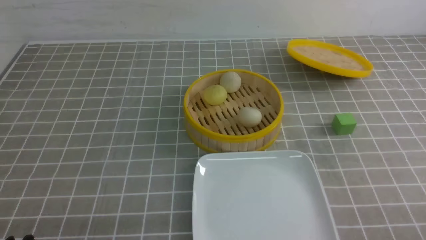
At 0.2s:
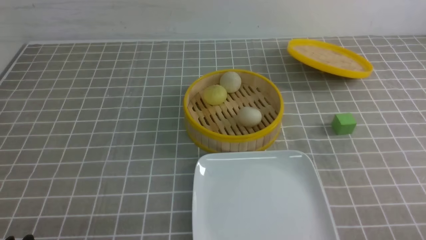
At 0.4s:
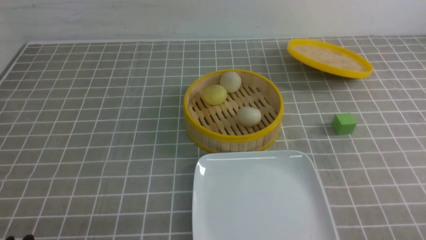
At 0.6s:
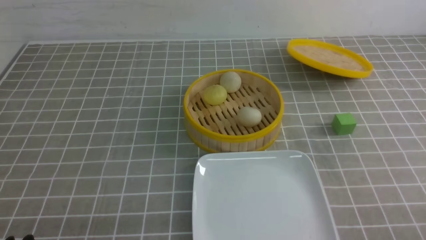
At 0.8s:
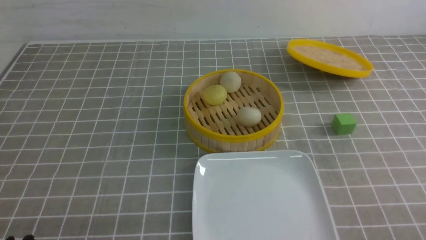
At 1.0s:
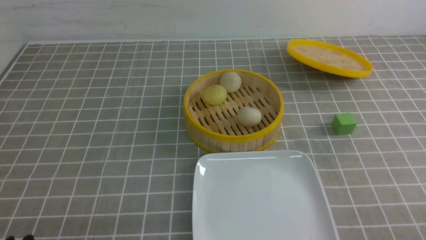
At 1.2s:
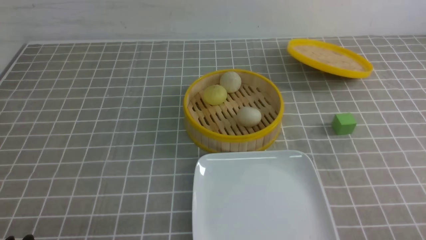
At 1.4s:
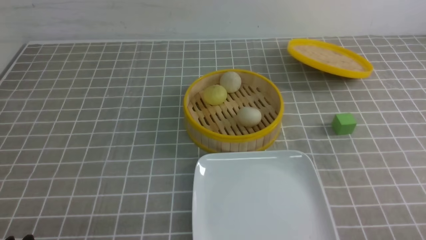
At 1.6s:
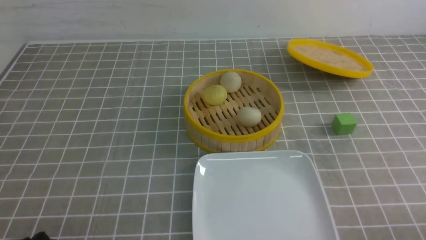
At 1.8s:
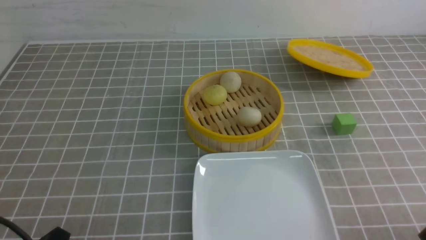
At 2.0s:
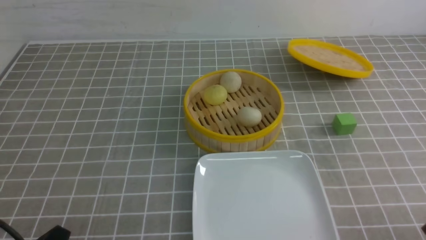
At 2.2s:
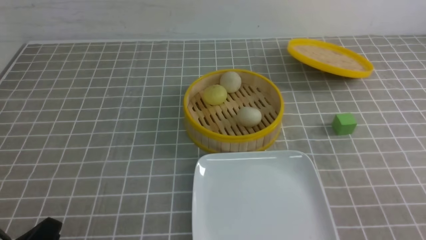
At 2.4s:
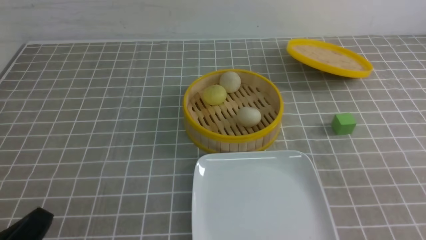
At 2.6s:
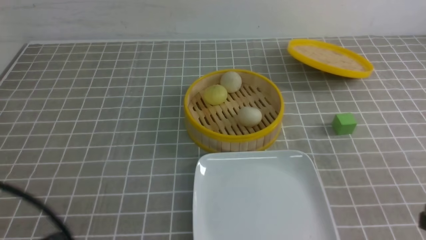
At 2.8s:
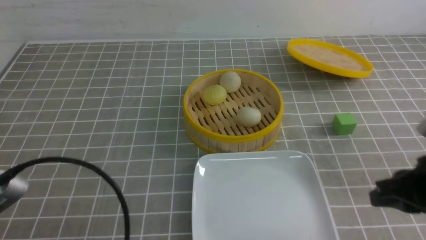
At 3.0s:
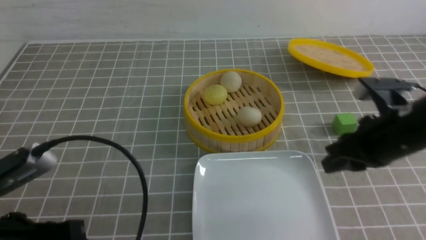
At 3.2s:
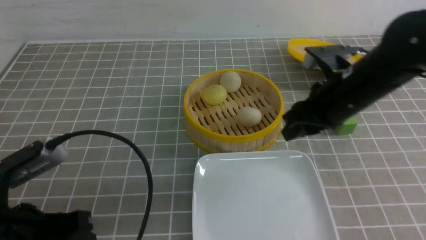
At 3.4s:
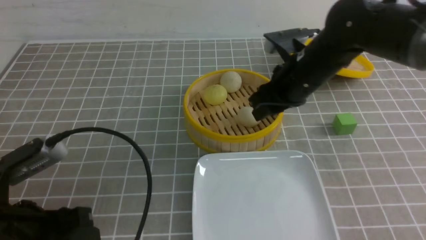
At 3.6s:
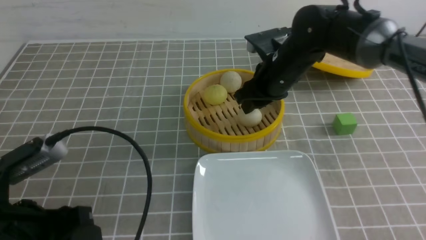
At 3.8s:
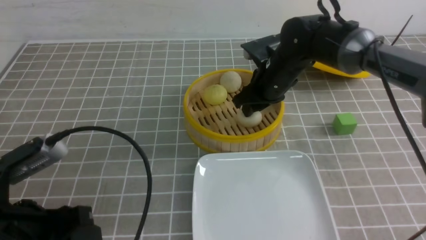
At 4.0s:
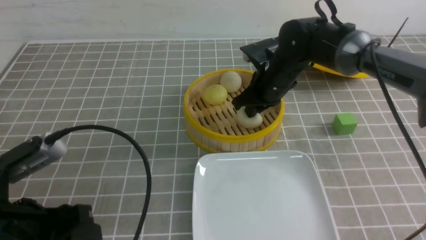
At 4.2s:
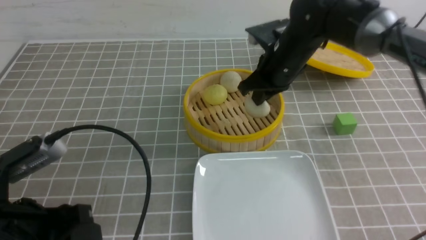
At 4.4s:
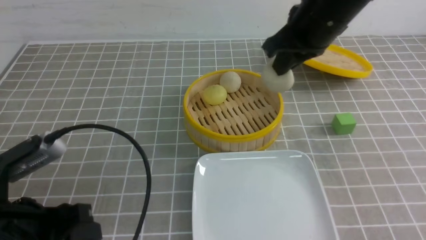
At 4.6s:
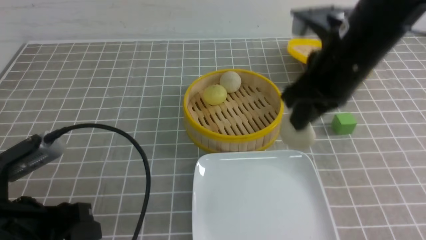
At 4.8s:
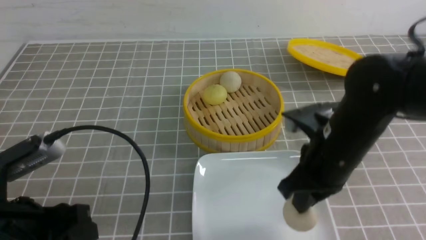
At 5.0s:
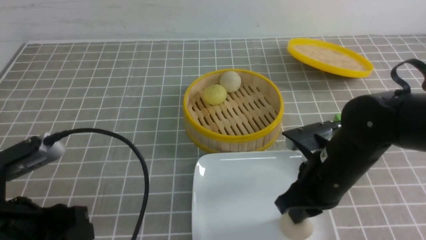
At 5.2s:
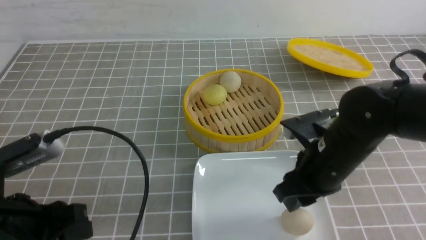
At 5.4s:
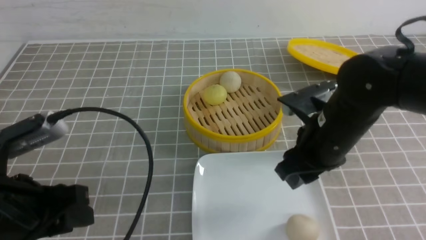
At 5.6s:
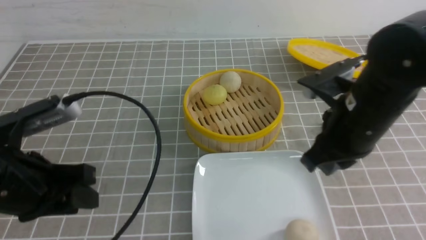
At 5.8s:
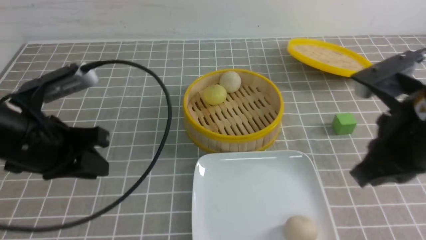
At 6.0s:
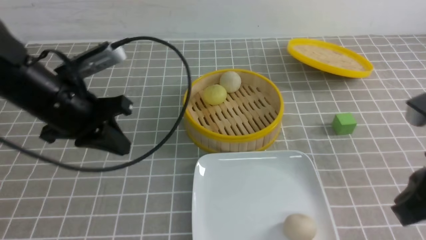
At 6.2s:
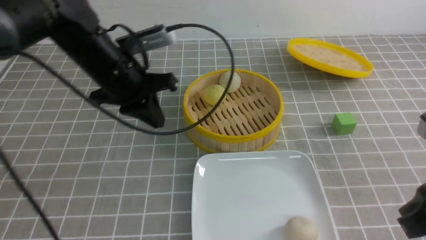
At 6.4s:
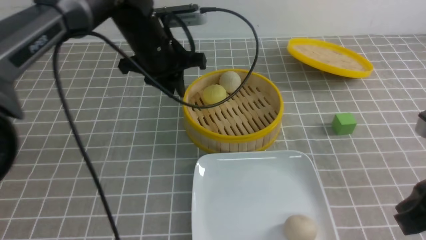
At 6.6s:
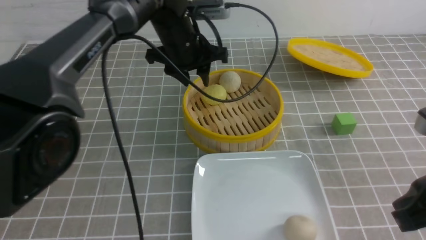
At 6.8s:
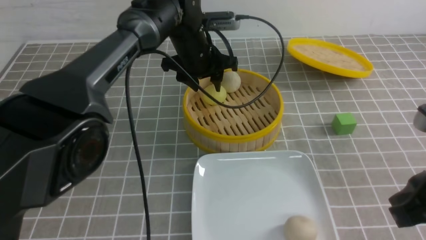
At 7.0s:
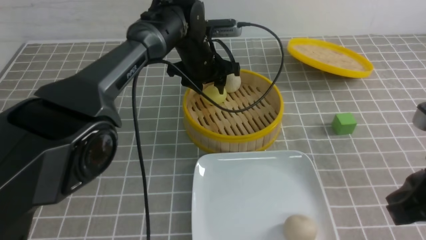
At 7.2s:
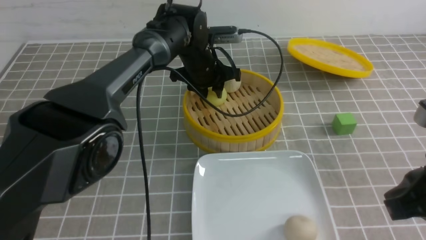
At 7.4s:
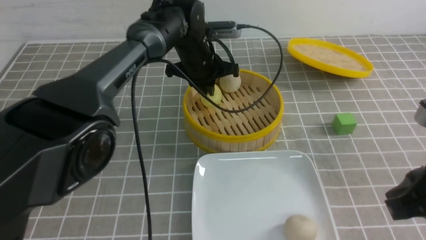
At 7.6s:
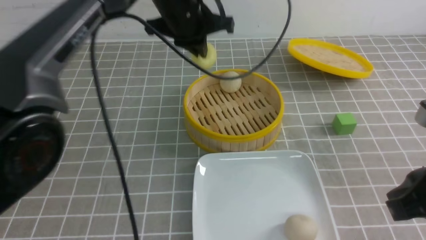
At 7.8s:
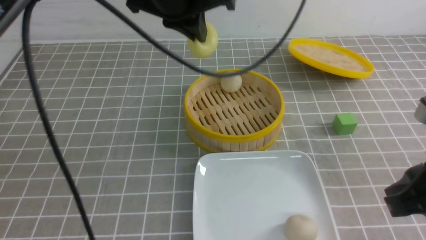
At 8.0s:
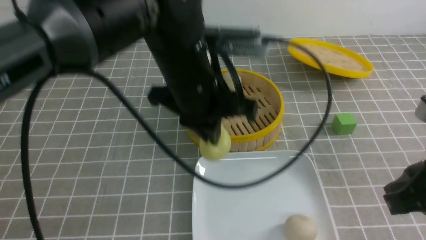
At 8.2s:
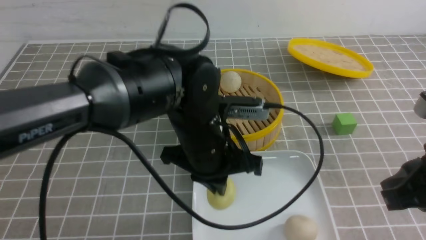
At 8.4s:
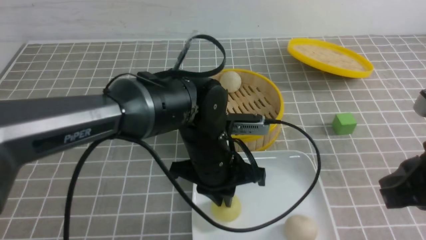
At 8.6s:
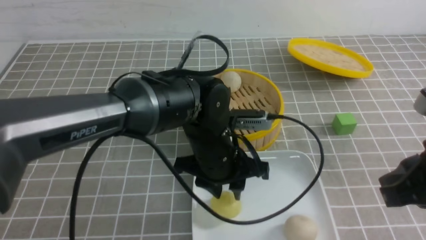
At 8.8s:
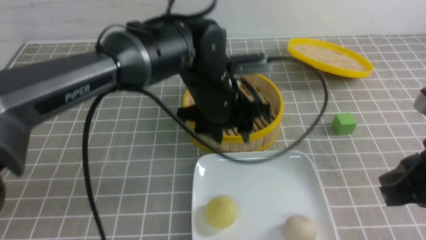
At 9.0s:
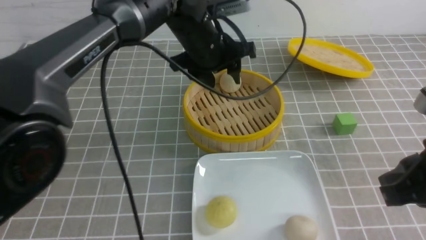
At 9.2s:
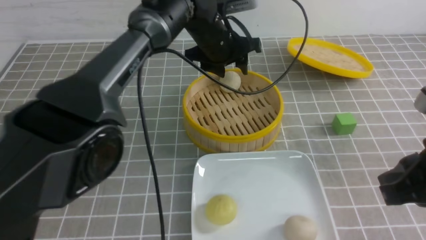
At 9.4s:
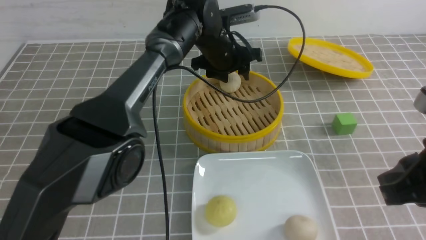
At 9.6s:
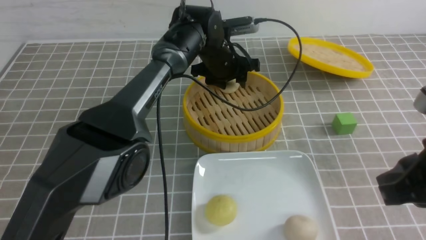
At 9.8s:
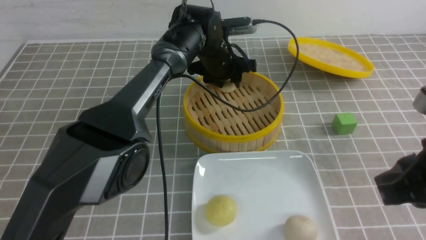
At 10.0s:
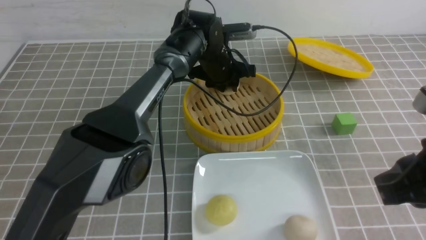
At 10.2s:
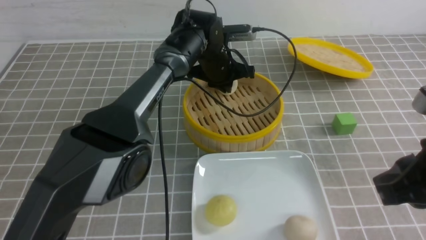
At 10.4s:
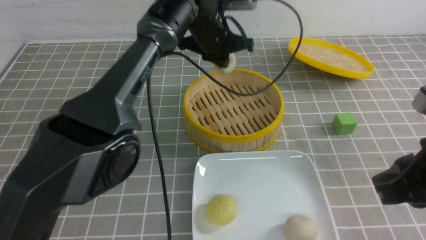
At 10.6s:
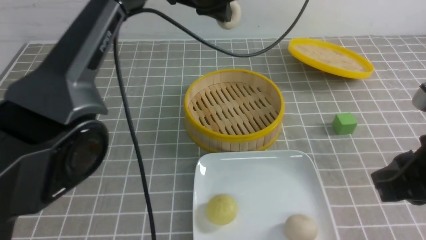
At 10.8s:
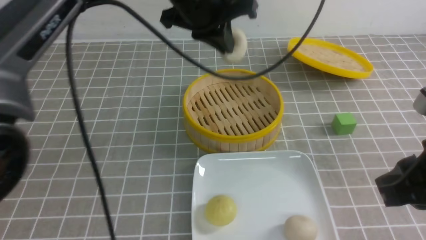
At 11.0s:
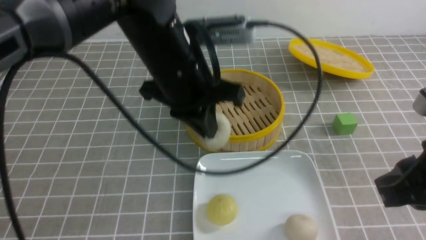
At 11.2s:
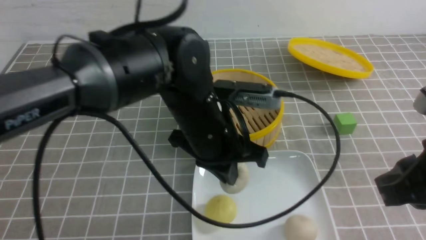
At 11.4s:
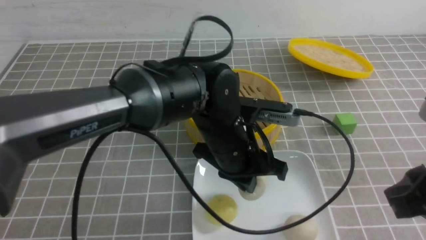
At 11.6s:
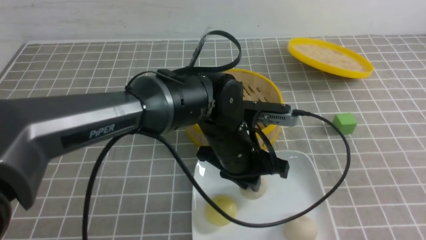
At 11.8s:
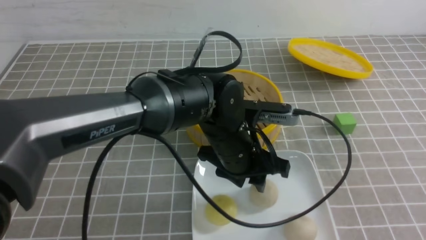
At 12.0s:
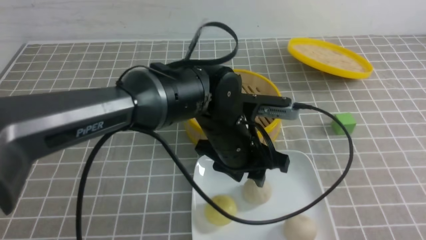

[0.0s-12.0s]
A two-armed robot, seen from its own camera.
Step, 0.0s to 4.0s: use the right arm to grab the steamed stuffed bun that is closest to it.
Step, 4.2s to 5.0s: use the right arm to put the steamed stuffed bun into the plate.
Step, 5.4s to 7.4s: use the left arm to grab the steamed stuffed bun that is closest to it.
Step, 7.6s to 8.6s: use the left arm to put the steamed stuffed bun into the plate.
Step, 8.8s to 10.2s: use the left arm to grab the steamed stuffed bun that is closest to it.
Step, 10.4s to 11.6s: use the left arm to put the steamed stuffed bun into the plate.
1.6s to 3.0s: The left gripper goes about 10 cm upward and forward, and closes, while the right gripper moves forward, upward and to the left, roughly 25 cm, and closes, then reopens.
3.0s to 4.4s: The left gripper opens up, while the right gripper moves forward, to the left and upward, approximately 15 cm, and closes.
4.4s to 6.0s: The right gripper heads backward and to the right, covering roughly 20 cm, and opens, then closes again; the left gripper goes some 15 cm forward, and closes up.
6.0s to 7.6s: The left gripper moves to the right and forward, some 20 cm, and opens and closes again.
7.6s to 9.0s: The left gripper travels downward by roughly 5 cm, and opens.
9.0s to 10.4s: The left gripper shifts some 5 cm forward, goes downward and returns, about 10 cm each way, and closes its fingers.
10.4s to 12.0s: The right gripper heads backward and to the right, covering some 20 cm. The left gripper heads backward, covering approximately 20 cm, and opens up.

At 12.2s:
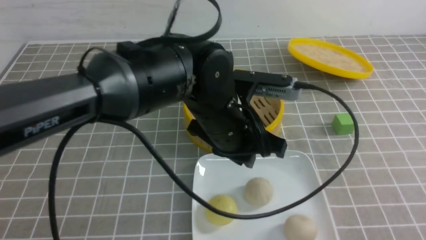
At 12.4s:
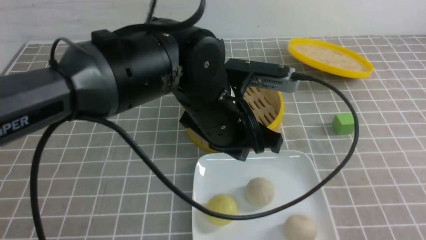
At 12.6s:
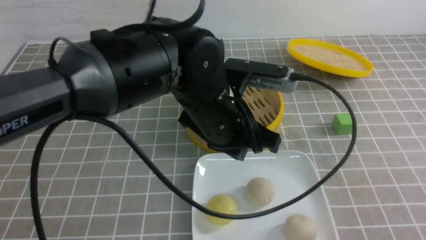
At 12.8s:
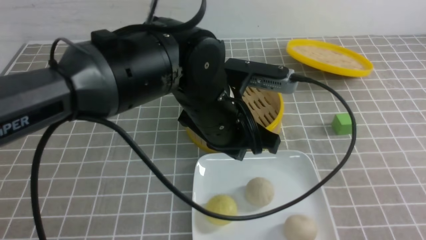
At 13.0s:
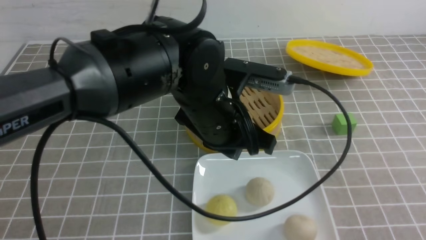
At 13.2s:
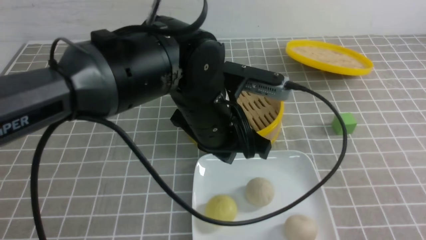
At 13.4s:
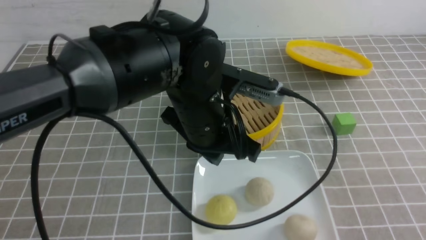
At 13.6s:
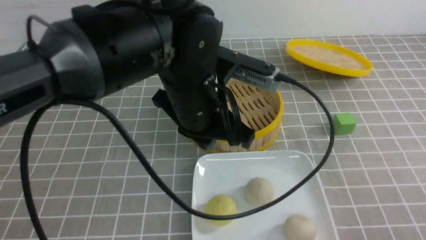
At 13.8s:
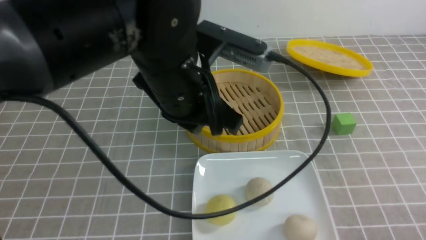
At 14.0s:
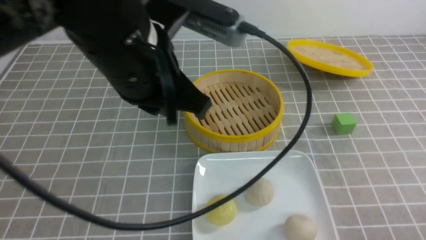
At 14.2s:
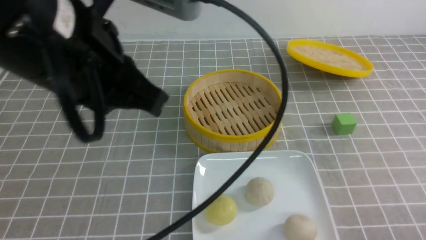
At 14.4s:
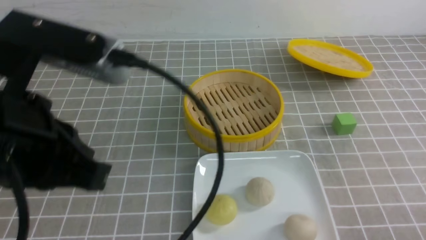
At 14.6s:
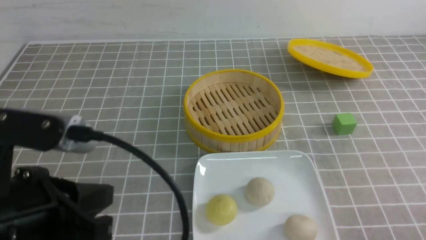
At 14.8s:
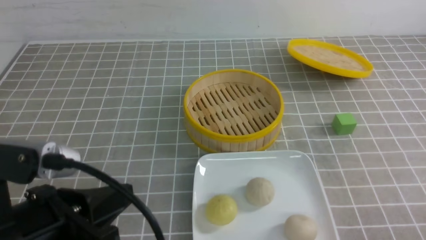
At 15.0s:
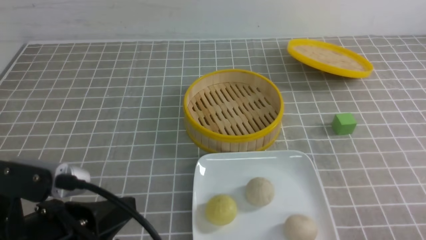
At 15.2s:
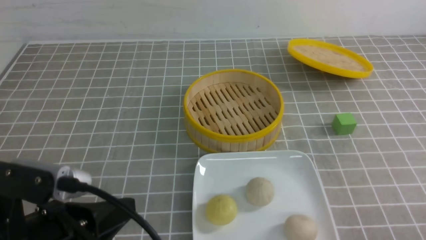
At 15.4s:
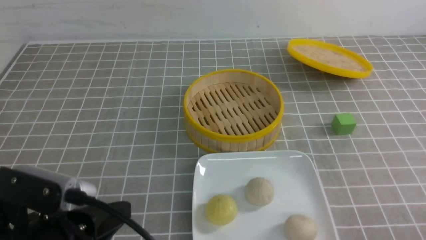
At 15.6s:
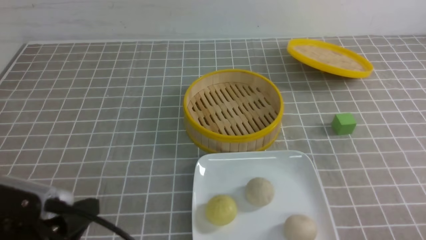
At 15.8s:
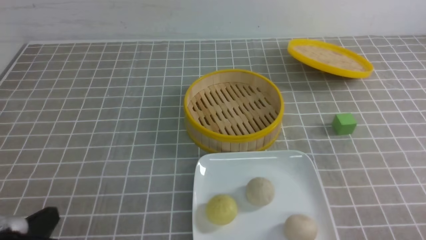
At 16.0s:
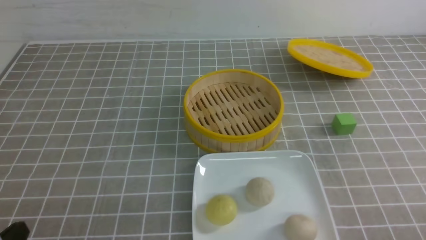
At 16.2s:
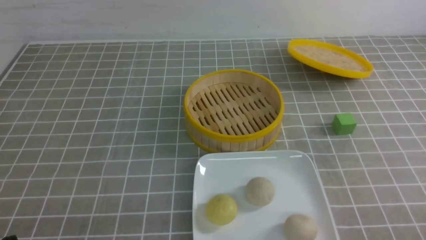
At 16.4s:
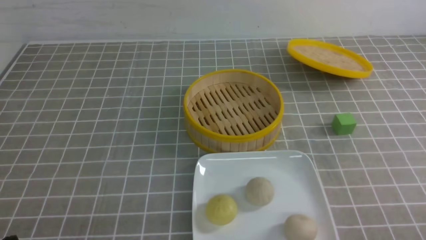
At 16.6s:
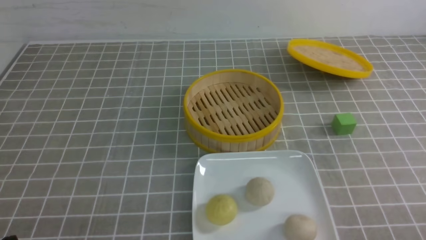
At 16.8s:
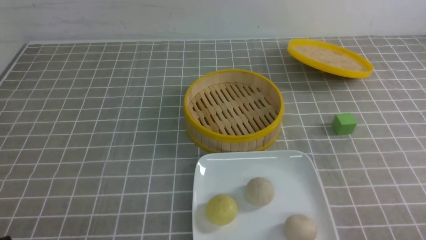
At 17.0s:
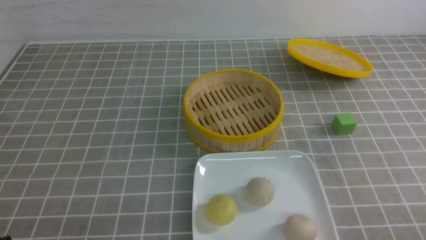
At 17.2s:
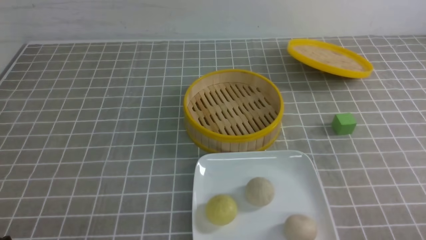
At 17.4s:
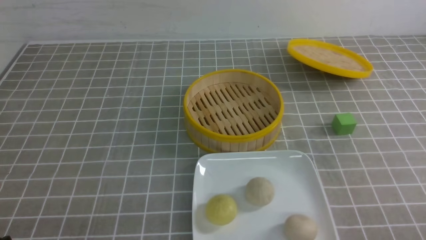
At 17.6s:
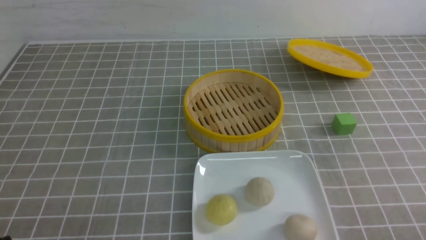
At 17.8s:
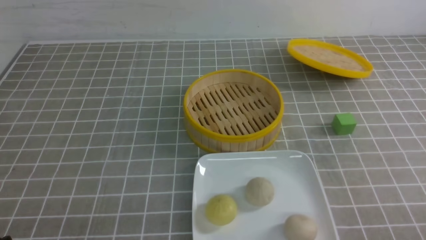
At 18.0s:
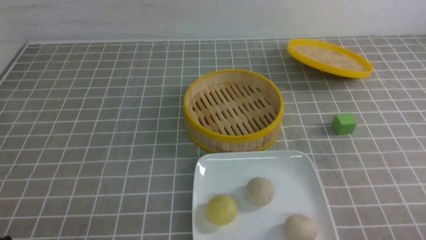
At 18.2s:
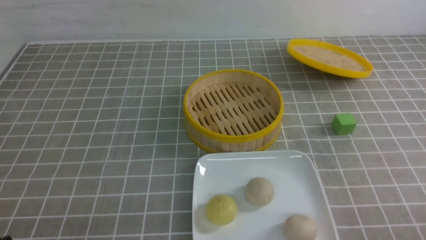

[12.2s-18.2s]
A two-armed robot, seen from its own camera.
12.2s to 13.8s: The left gripper goes roughly 10 cm upward and to the left, while the right gripper goes approximately 10 cm downward.
13.8s to 15.2s: The left gripper heads backward, to the left and downward, covering approximately 20 cm.
15.2s to 16.6s: The left gripper goes about 10 cm to the left and downward.
16.6s to 18.2s: Neither gripper changes place.
